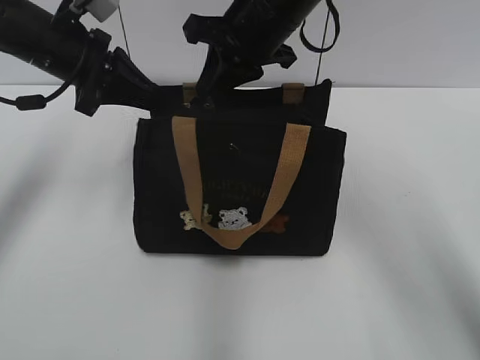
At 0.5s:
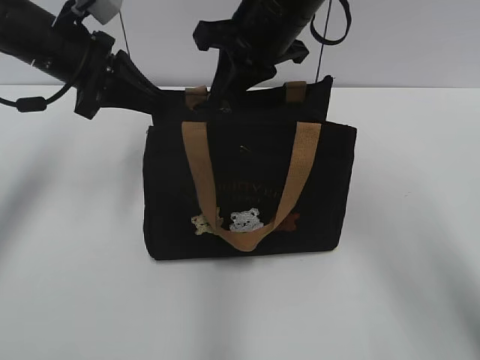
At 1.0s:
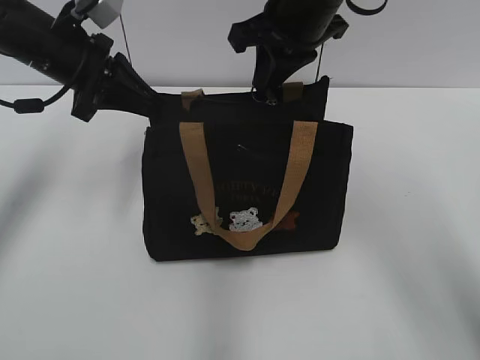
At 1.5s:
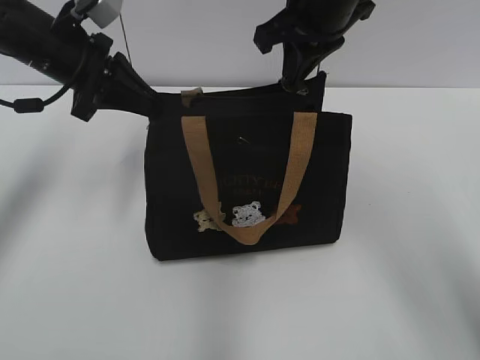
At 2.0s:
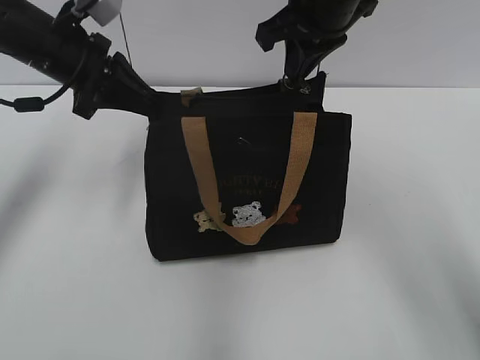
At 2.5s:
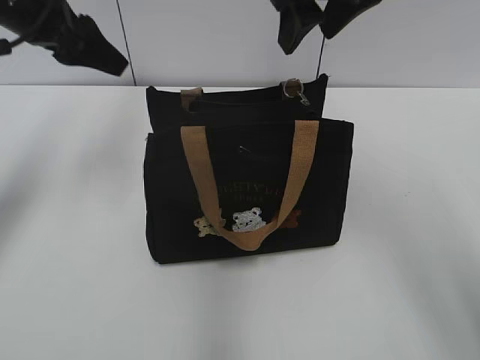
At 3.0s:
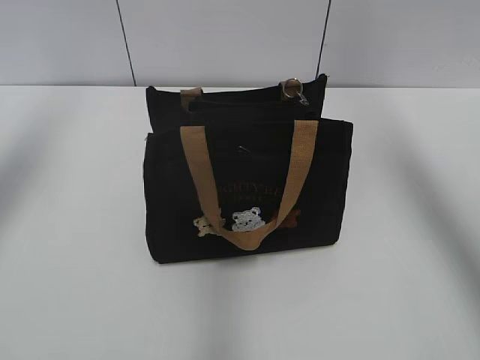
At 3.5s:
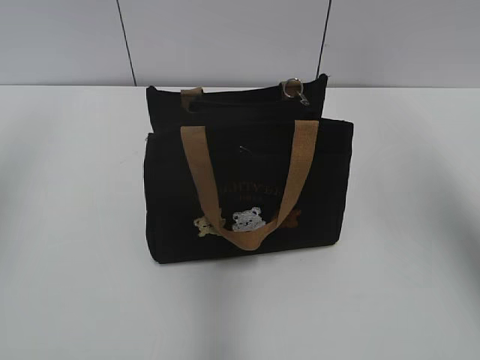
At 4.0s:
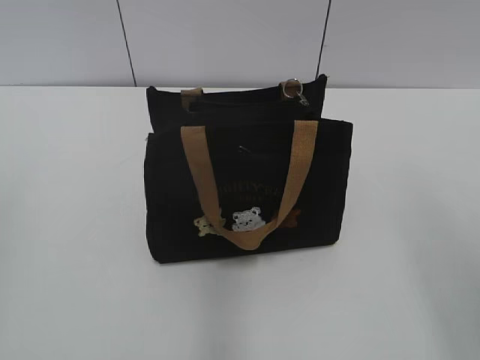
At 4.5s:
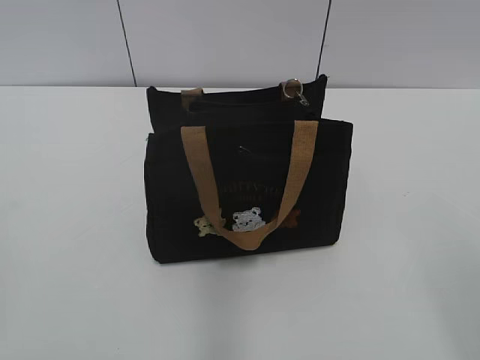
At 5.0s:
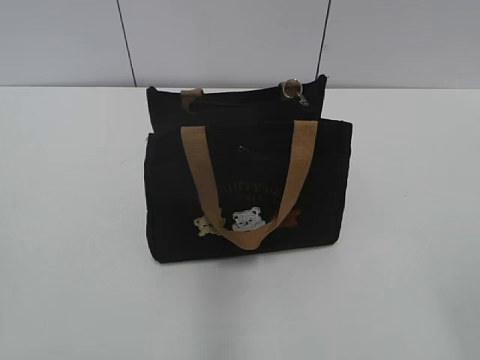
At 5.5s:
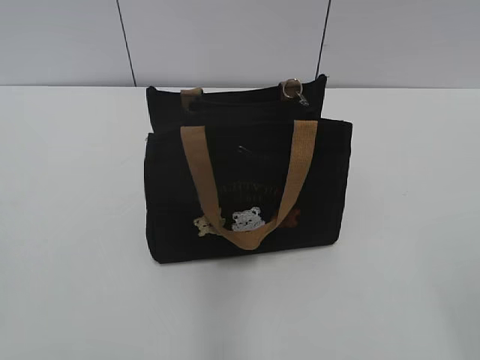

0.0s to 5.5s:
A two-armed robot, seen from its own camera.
Step, 0.0s to 2.0s: Pull open the zipper with your right hand.
0.0s to 2.0s: The right gripper shifts by roughly 5 cm.
2.0s to 3.5s: The right gripper travels to the right, upward and backward by approximately 25 cm, and opens up. Meanwhile the left gripper moves upward, backward and to the left, about 25 cm, and opens up.
3.5s to 5.5s: The right gripper shifts some 35 cm backward and downward.

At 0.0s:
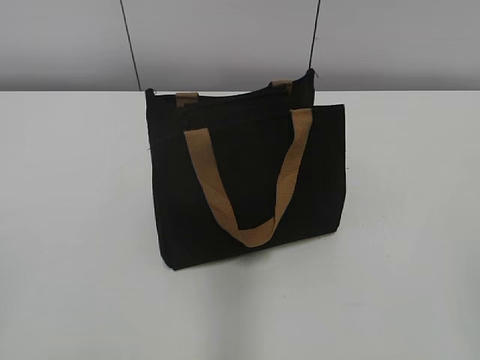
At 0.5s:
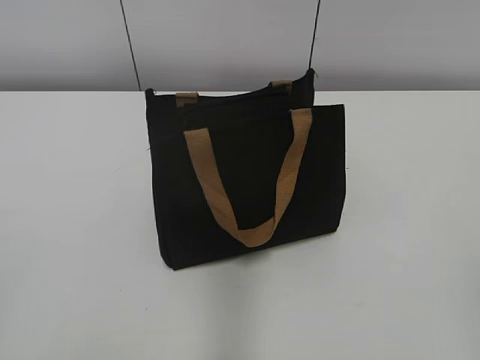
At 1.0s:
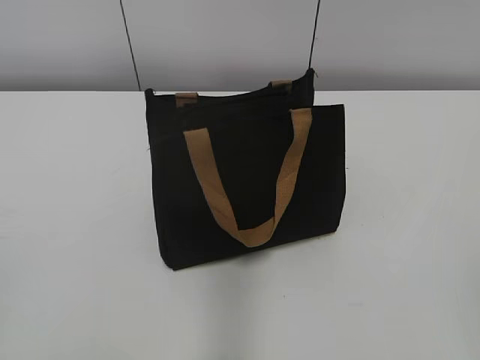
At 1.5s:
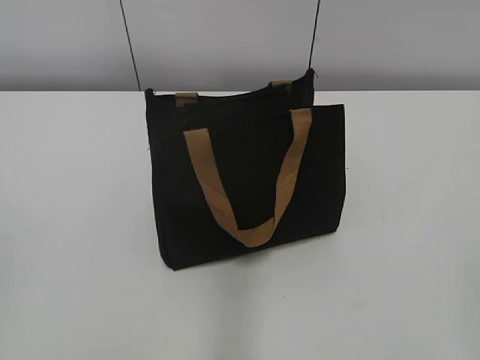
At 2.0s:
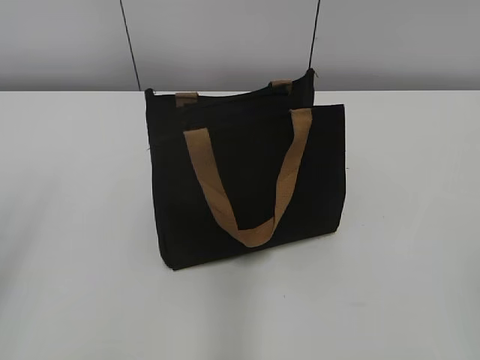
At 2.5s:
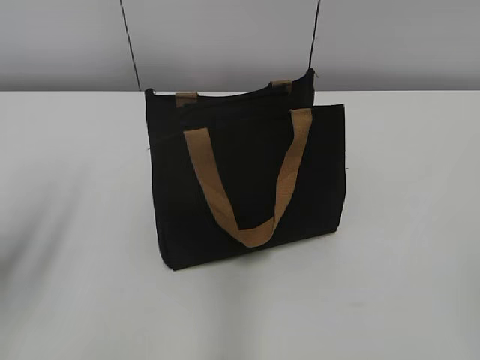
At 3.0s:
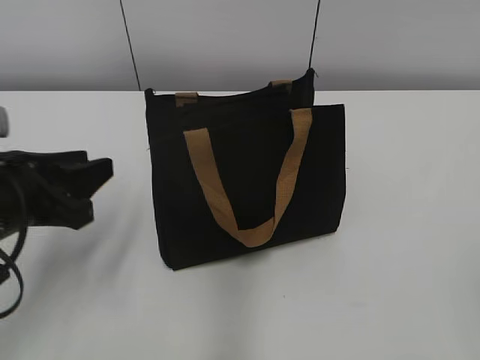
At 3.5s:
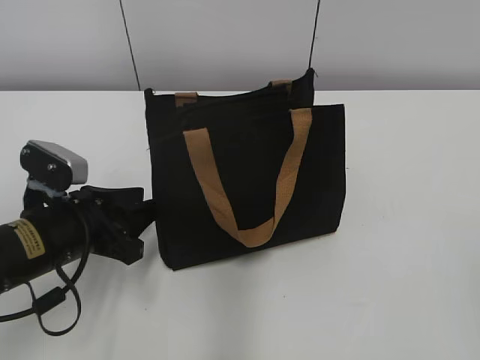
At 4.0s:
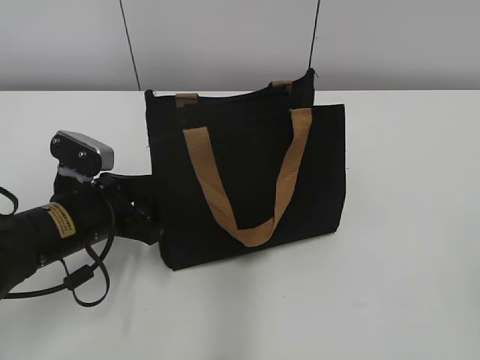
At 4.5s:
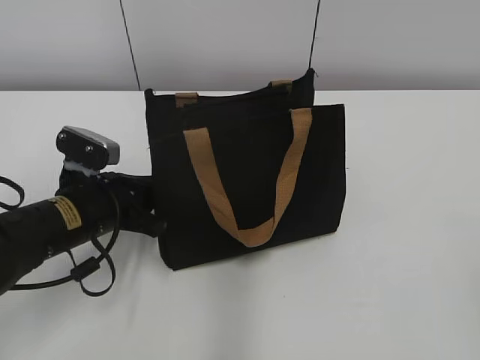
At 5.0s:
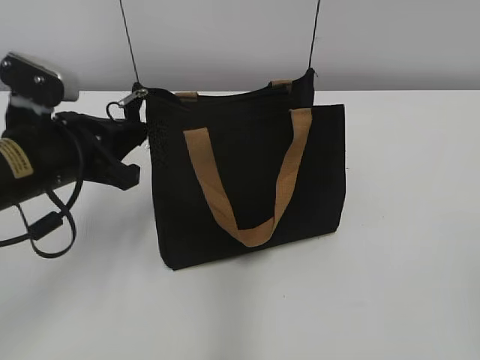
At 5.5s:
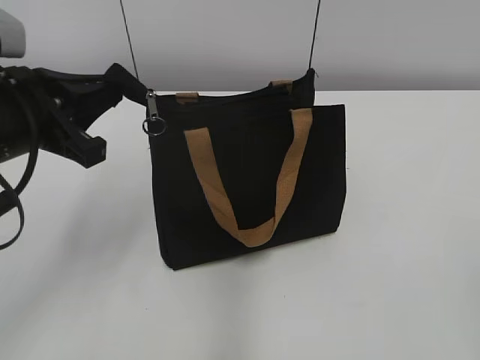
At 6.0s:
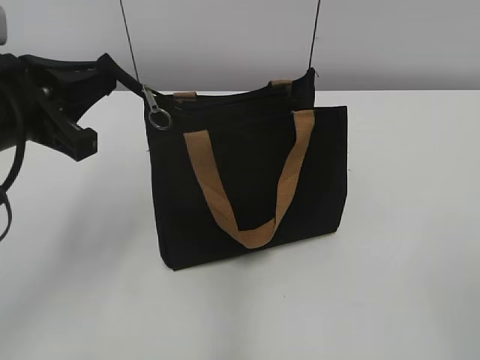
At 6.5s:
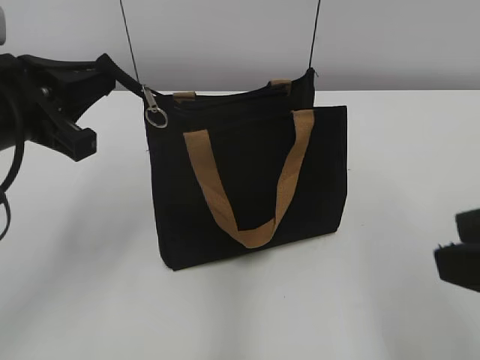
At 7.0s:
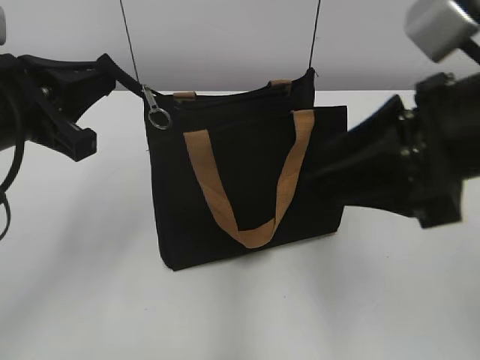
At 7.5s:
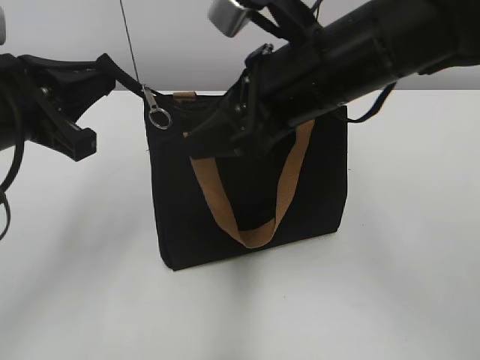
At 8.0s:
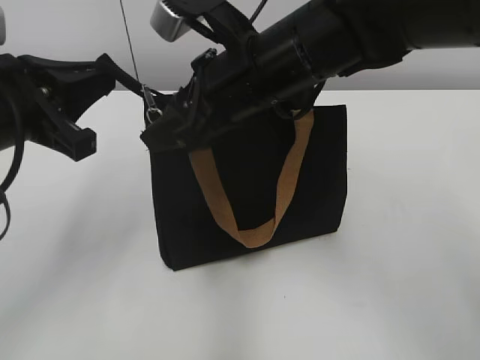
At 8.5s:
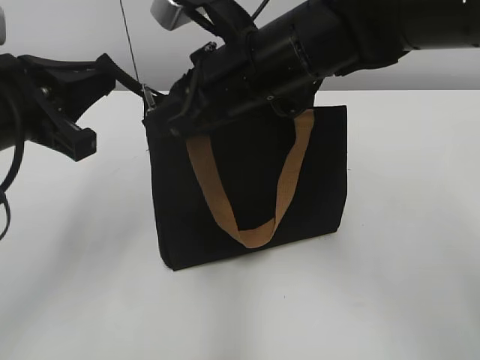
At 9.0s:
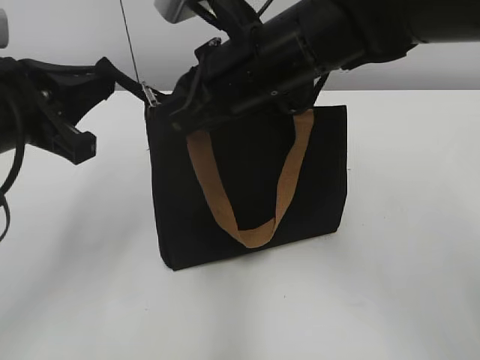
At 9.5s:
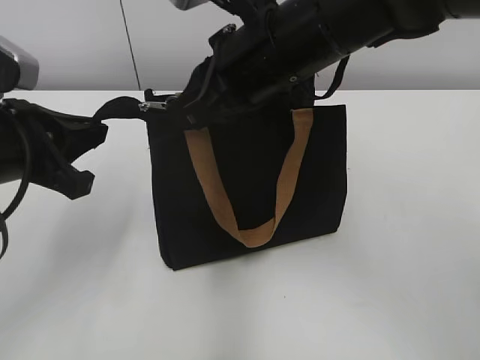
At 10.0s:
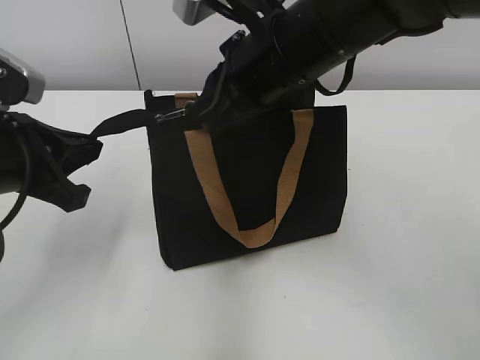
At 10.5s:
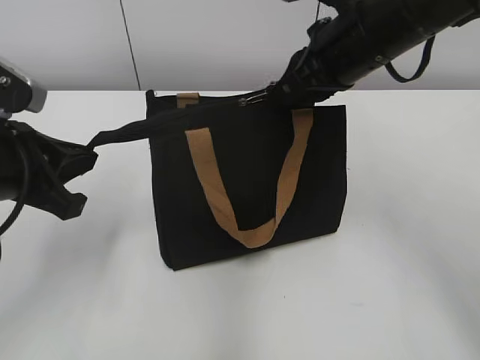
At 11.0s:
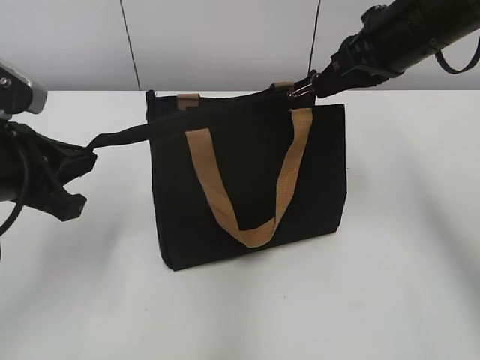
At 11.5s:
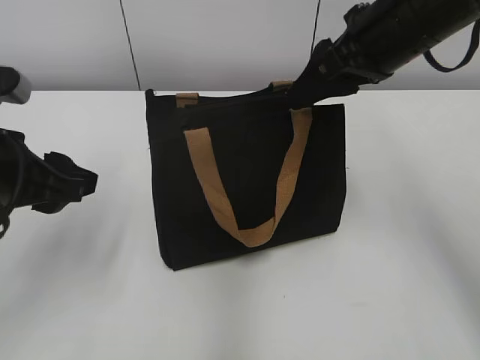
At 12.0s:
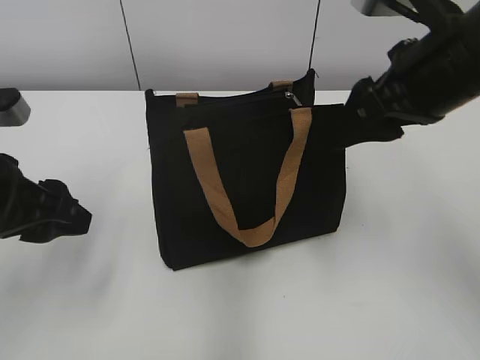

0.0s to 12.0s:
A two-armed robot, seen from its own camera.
Step, 0.0s to 11.0s: Zip up the bag with your right hand.
2.0s to 4.0s: The left gripper is displaced downward, forward and to the right by approximately 30 cm.
4.0s to 6.0s: The left gripper heads upward, covering roughly 15 cm, and closes.
6.0s to 8.0s: The right gripper moves forward and to the left, roughly 40 cm.
8.0s to 10.0s: The right gripper closes up.
10.0s to 12.0s: The left gripper opens its fingers. Meanwhile the right gripper moves to the right, about 10 cm, and opens up.

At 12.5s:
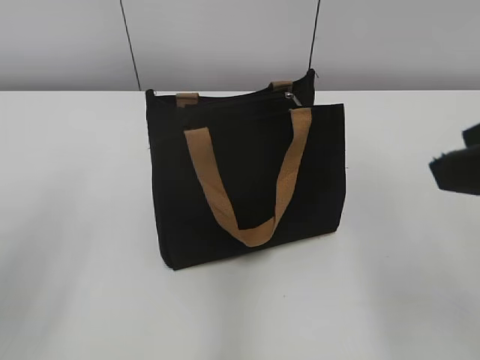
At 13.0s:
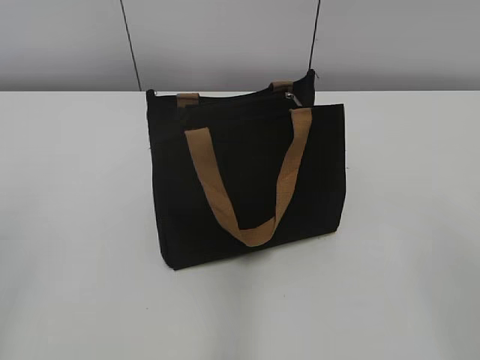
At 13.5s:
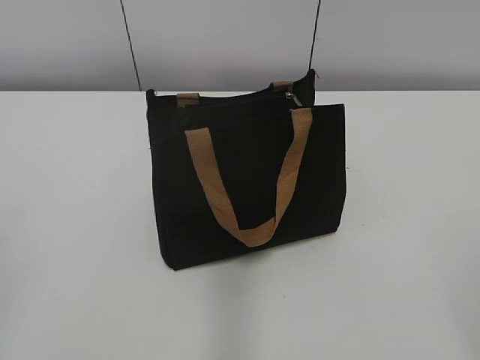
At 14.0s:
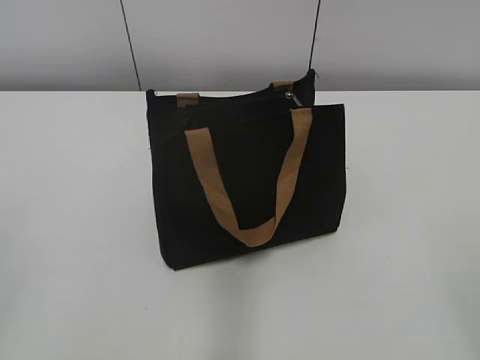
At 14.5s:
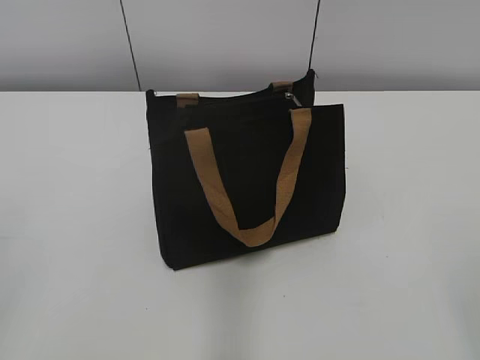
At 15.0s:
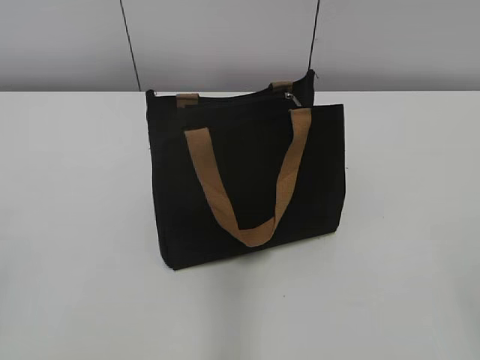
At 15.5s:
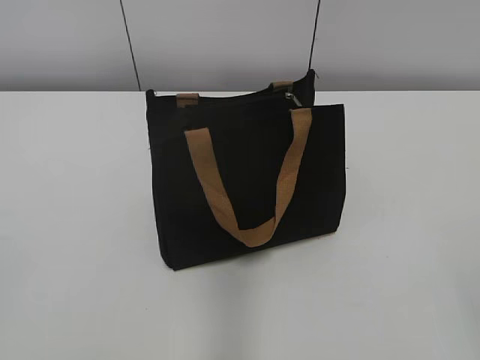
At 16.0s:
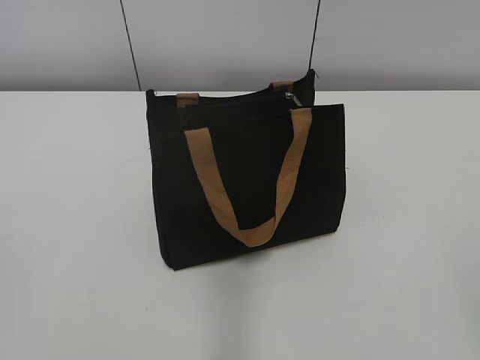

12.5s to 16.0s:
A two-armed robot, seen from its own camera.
12.5s to 14.5s: The right gripper heads backward and to the right, covering approximately 20 cm.

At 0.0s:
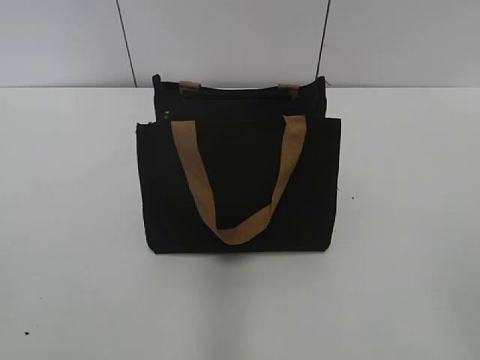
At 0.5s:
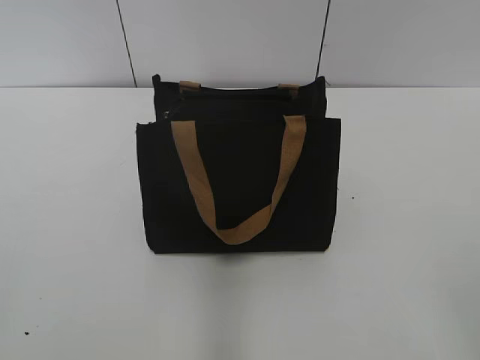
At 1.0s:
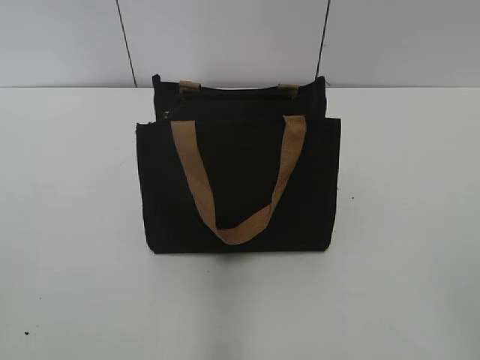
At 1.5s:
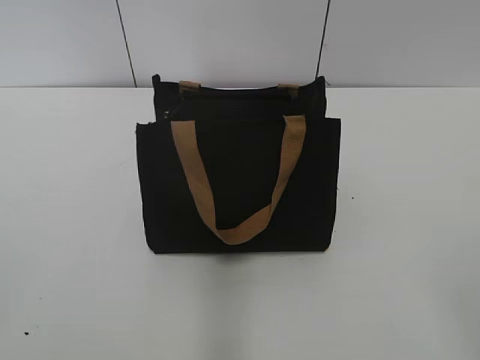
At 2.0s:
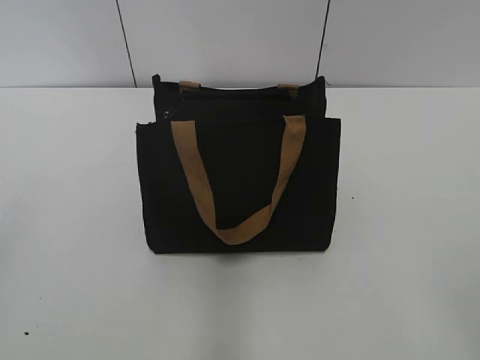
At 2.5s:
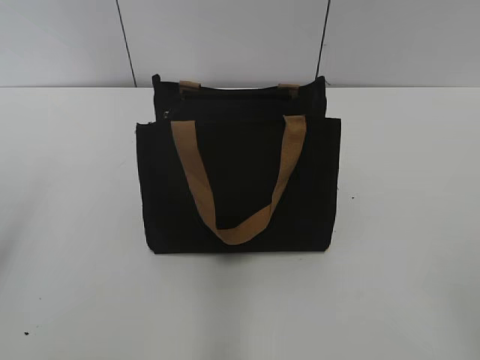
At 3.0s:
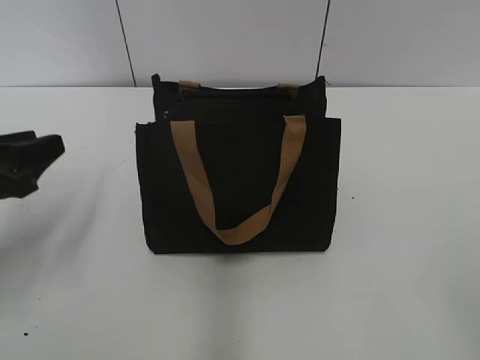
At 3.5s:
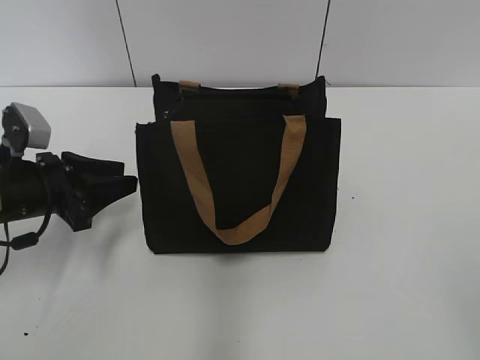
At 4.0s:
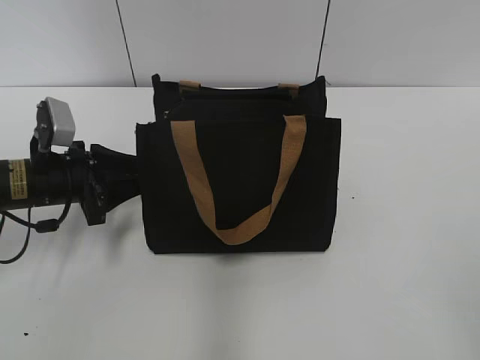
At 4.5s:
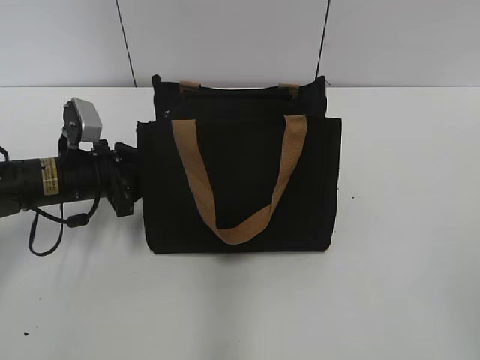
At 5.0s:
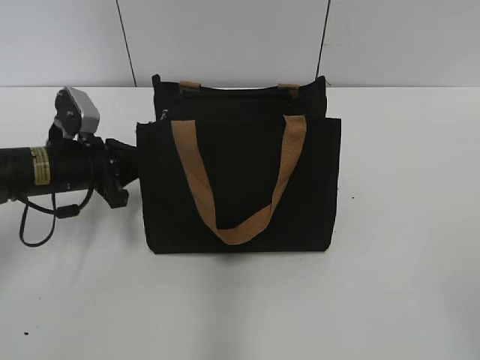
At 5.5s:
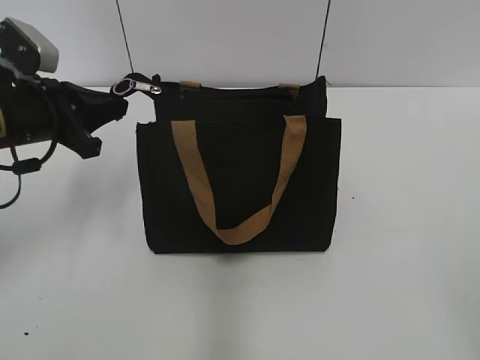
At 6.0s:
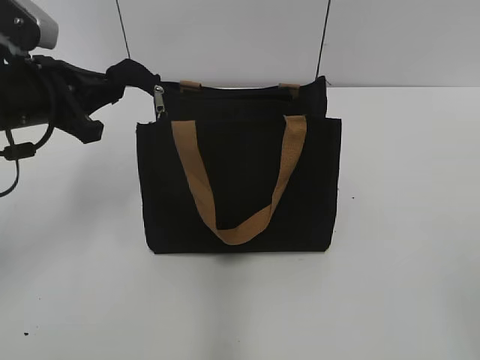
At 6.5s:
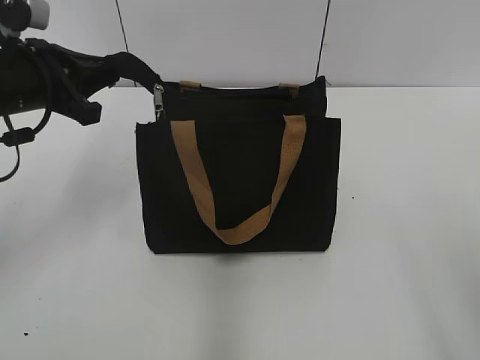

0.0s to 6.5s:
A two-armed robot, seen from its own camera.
2.0s to 4.5s: The left gripper travels forward and downward by roughly 40 cm, and closes.
4.5s to 6.5s: The left gripper heads upward, covering approximately 15 cm, and closes up.
